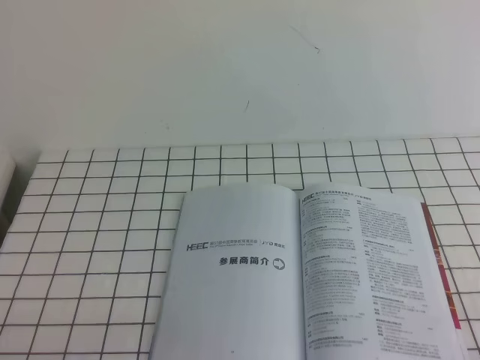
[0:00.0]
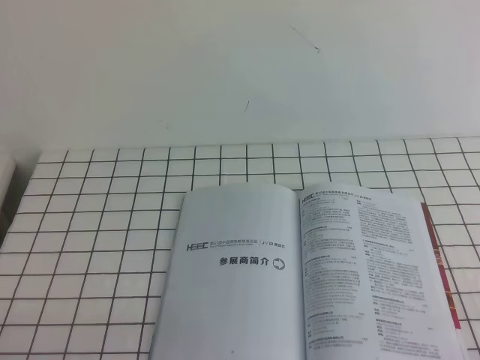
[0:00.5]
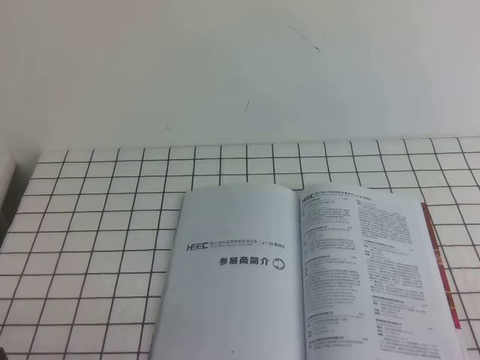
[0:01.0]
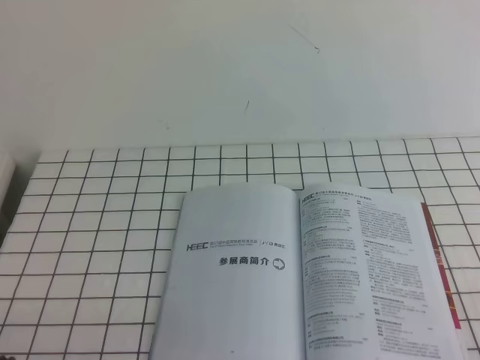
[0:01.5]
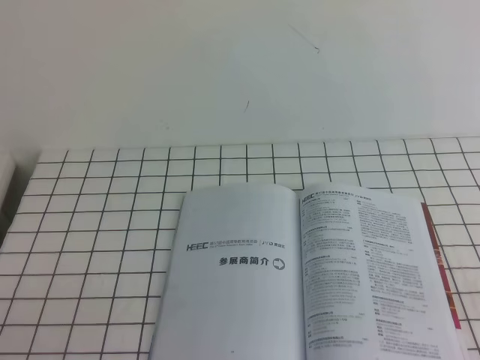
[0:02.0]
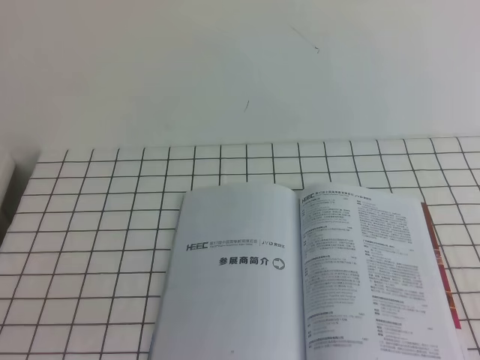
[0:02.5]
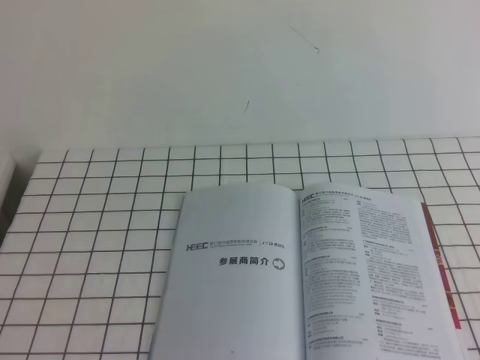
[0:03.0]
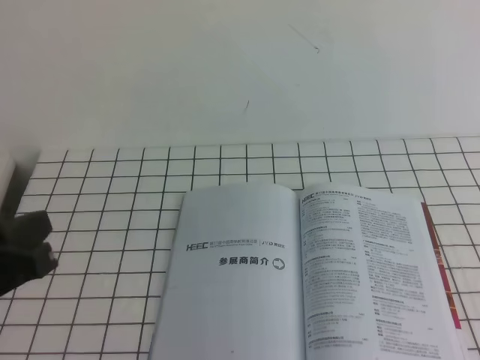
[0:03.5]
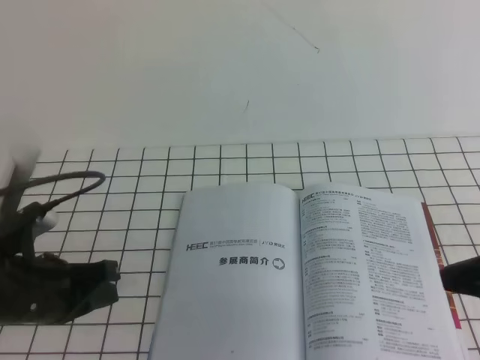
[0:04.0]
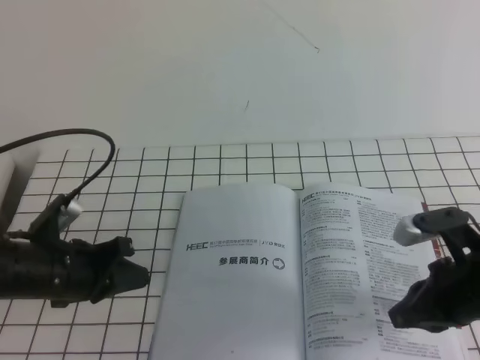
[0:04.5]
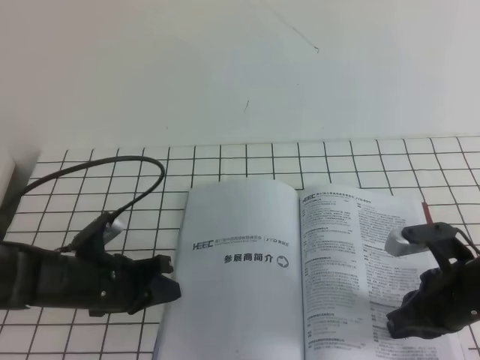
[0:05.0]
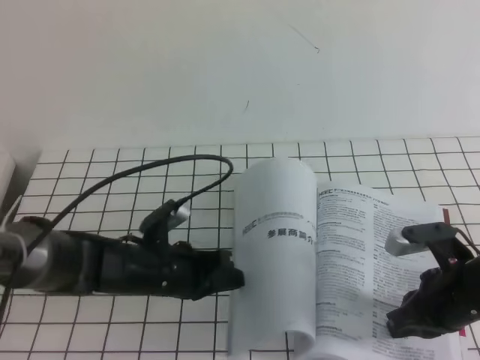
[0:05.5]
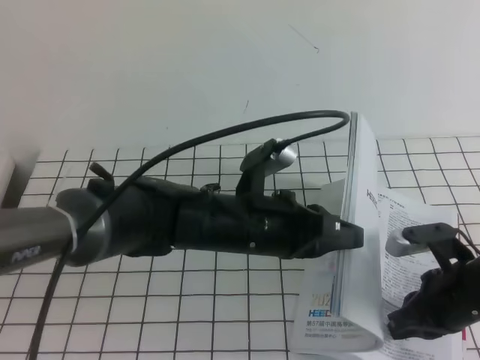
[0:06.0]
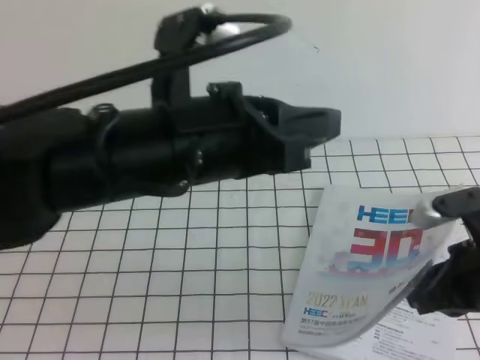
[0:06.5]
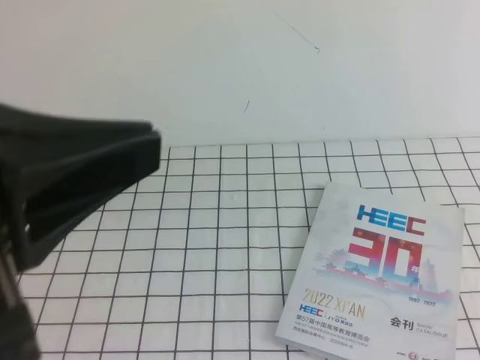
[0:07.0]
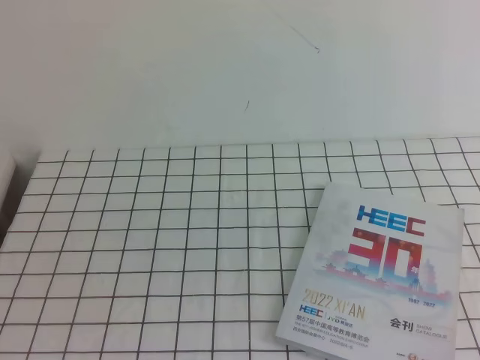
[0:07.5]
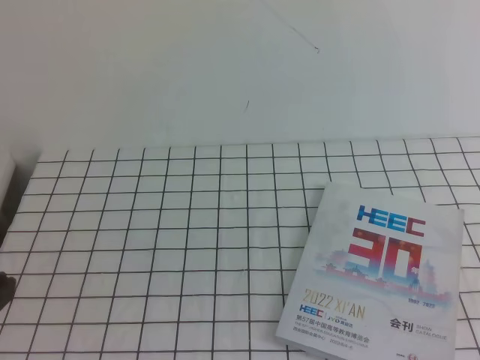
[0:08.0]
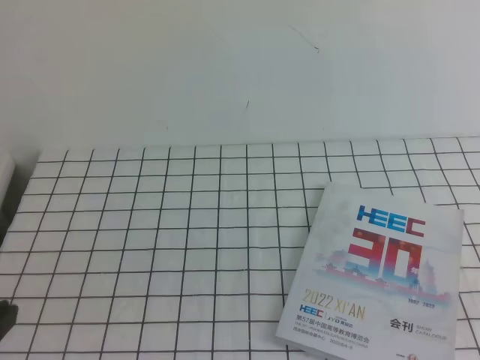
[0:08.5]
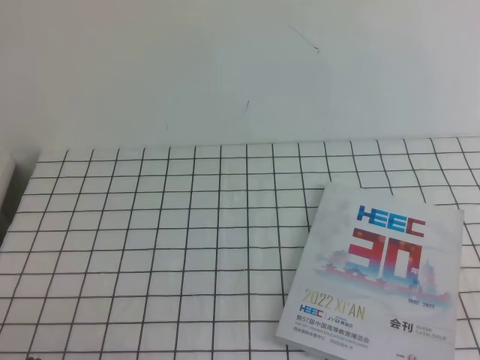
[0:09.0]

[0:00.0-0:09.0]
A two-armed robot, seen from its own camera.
Task of the whole recording: on the white tablecloth, hold the book with one hand and close it with the other.
0:02.0 to 0:04.5: The right gripper travels forward and to the left by about 20 cm, and goes upward and returns, roughly 20 cm each way. The left gripper heads forward, covering some 20 cm.
0:04.5 to 0:07.0: Both grippers travel together upward and backward, about 30 cm.
0:07.0 to 0:09.0: The right gripper travels downward and backward by roughly 10 cm. Meanwhile the left gripper goes roughly 25 cm downward.
